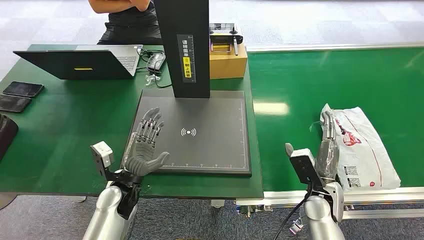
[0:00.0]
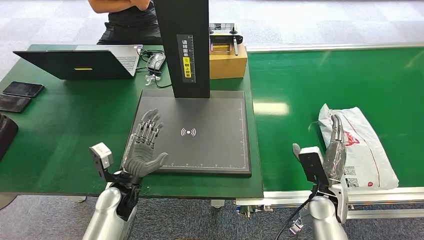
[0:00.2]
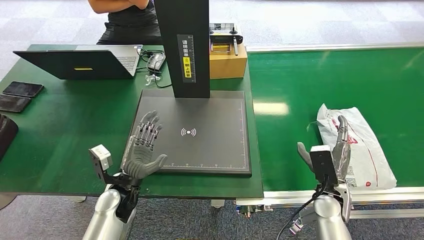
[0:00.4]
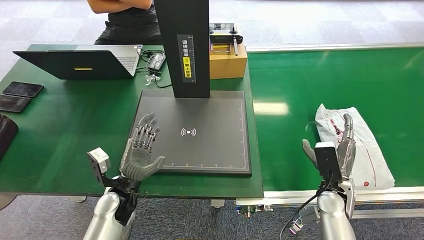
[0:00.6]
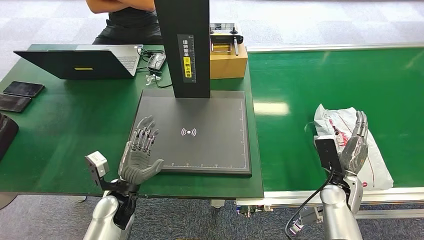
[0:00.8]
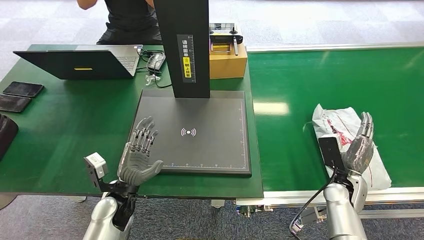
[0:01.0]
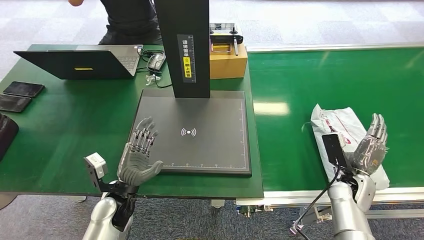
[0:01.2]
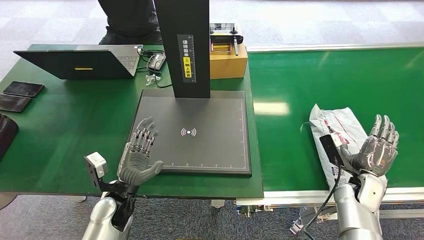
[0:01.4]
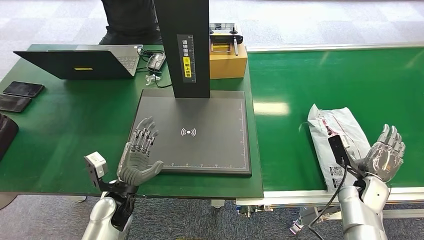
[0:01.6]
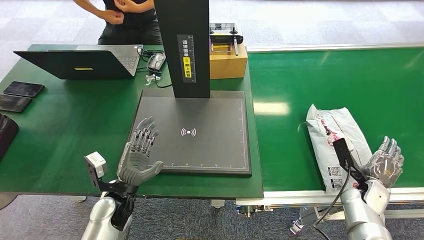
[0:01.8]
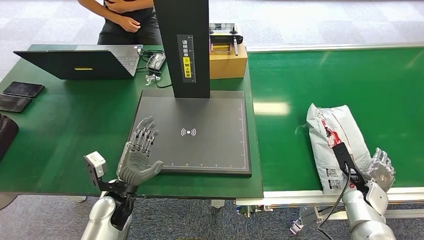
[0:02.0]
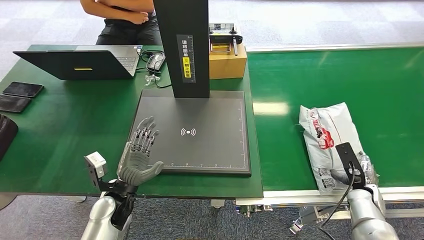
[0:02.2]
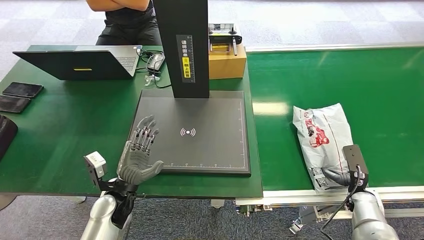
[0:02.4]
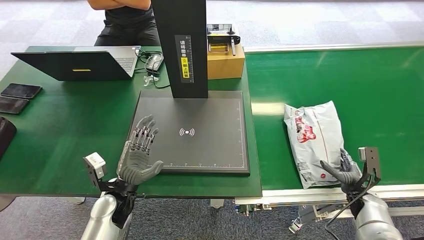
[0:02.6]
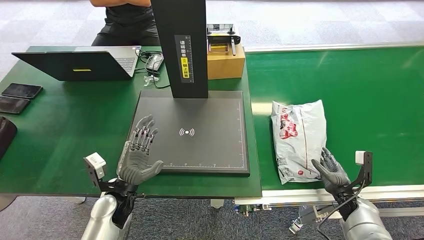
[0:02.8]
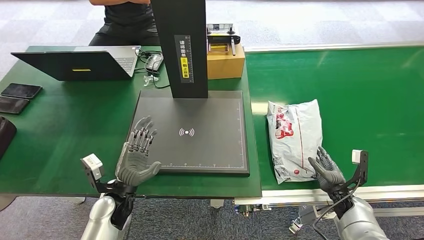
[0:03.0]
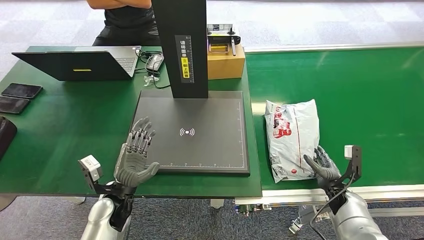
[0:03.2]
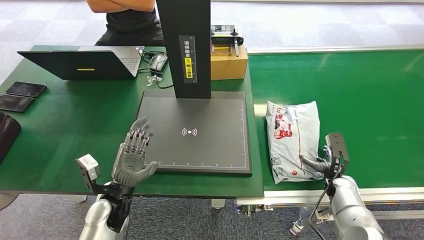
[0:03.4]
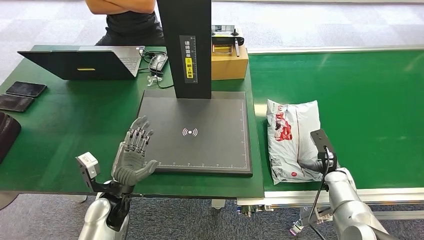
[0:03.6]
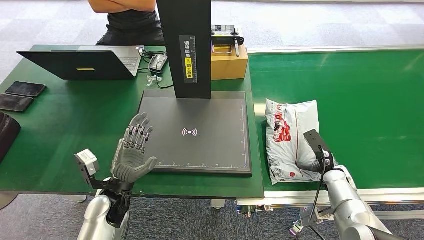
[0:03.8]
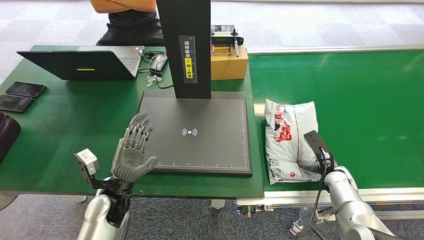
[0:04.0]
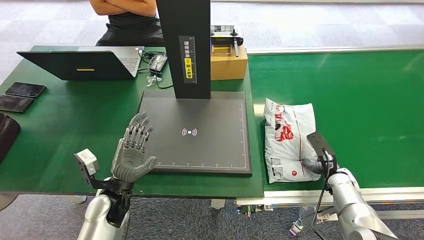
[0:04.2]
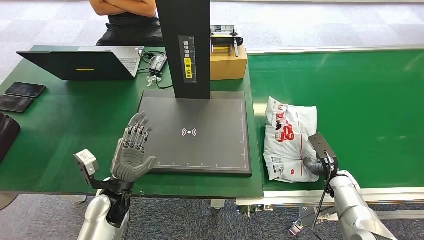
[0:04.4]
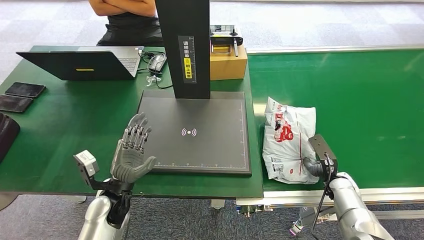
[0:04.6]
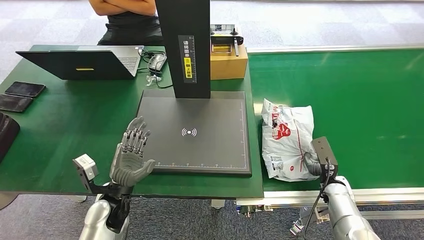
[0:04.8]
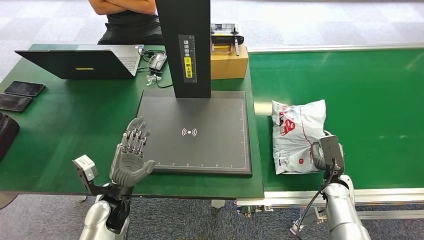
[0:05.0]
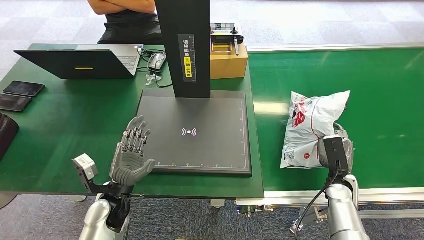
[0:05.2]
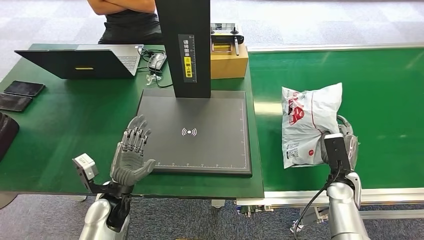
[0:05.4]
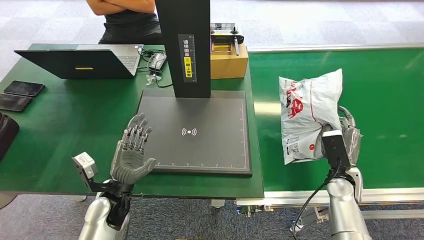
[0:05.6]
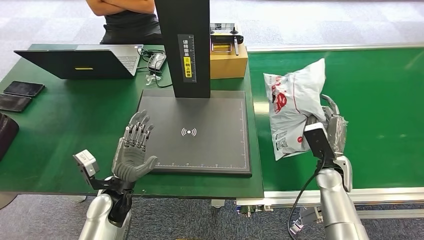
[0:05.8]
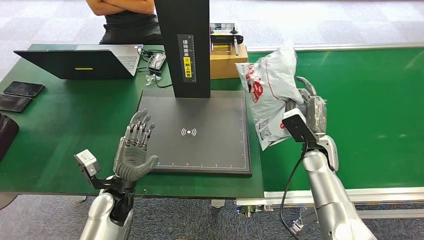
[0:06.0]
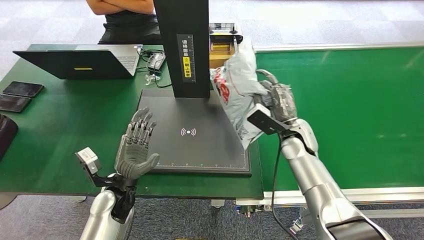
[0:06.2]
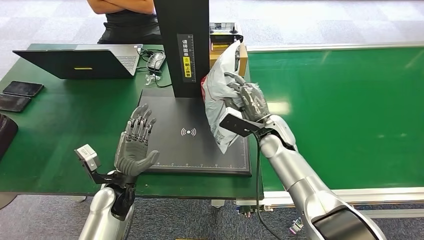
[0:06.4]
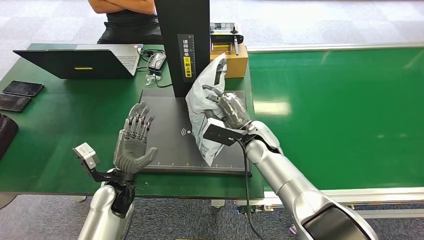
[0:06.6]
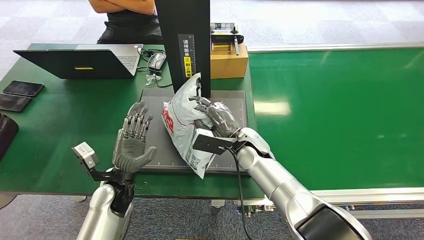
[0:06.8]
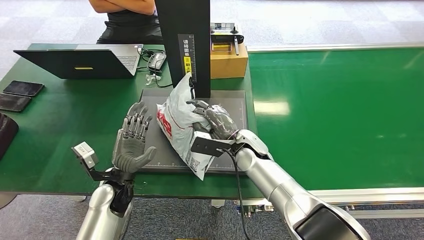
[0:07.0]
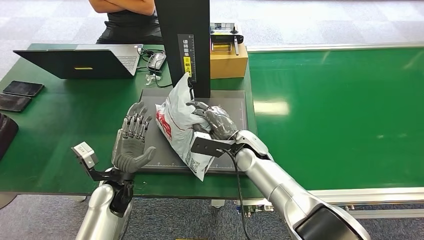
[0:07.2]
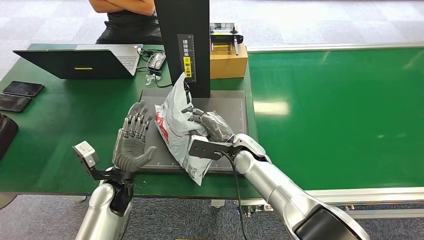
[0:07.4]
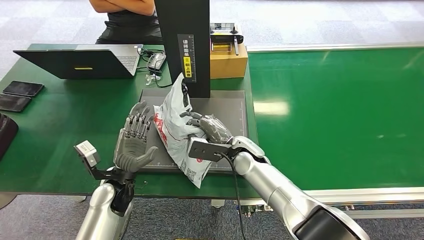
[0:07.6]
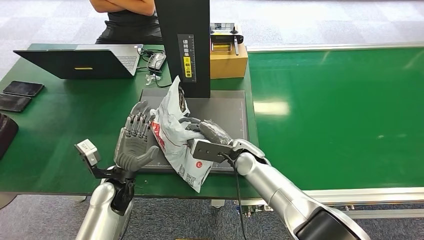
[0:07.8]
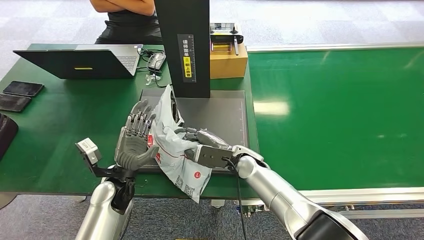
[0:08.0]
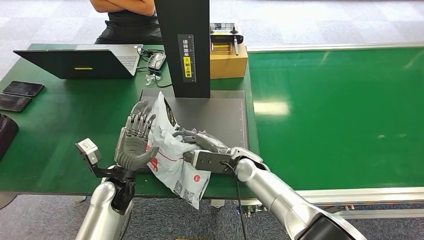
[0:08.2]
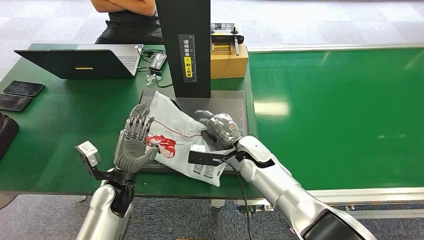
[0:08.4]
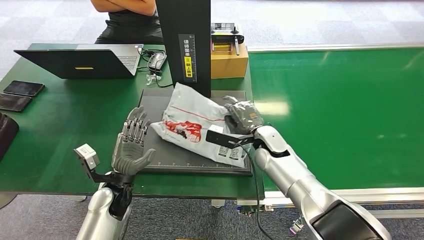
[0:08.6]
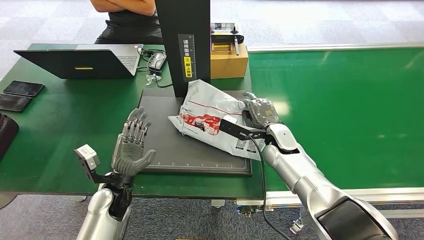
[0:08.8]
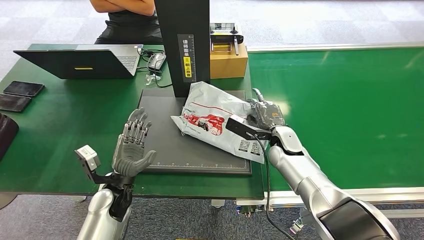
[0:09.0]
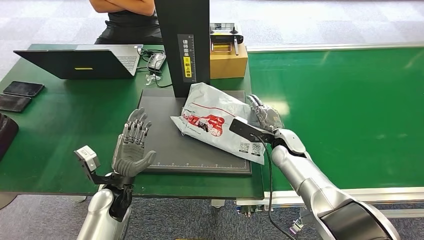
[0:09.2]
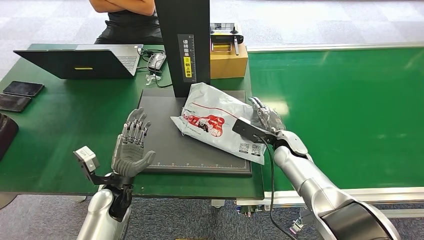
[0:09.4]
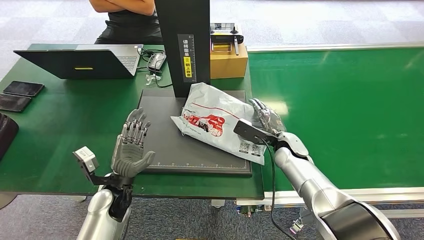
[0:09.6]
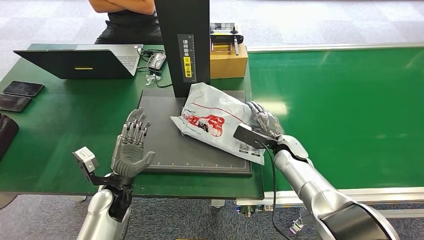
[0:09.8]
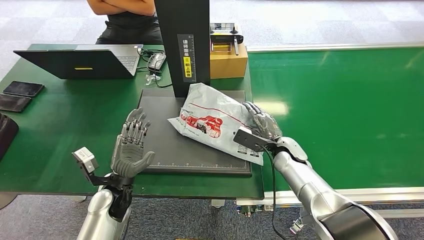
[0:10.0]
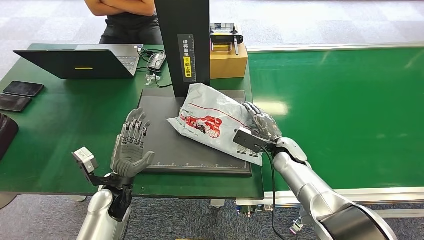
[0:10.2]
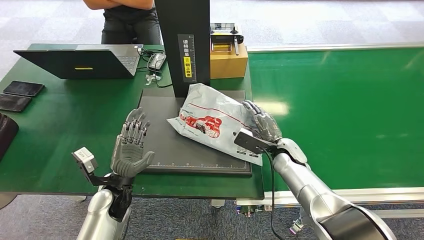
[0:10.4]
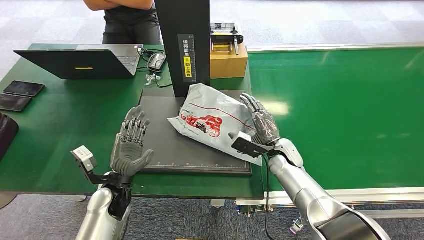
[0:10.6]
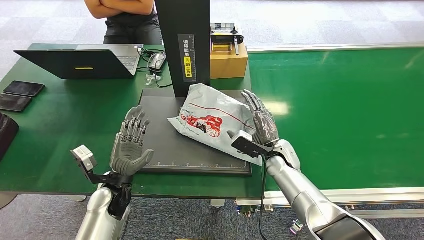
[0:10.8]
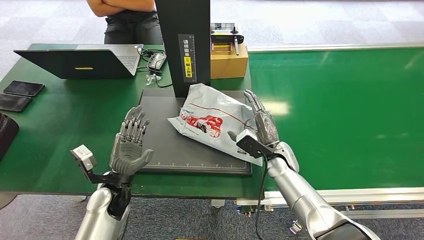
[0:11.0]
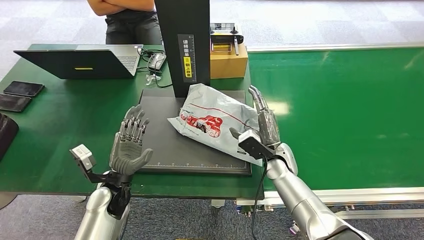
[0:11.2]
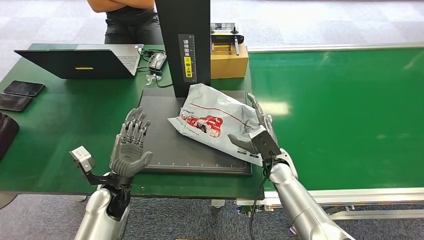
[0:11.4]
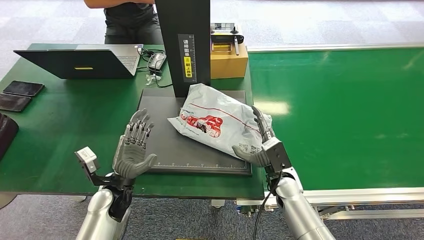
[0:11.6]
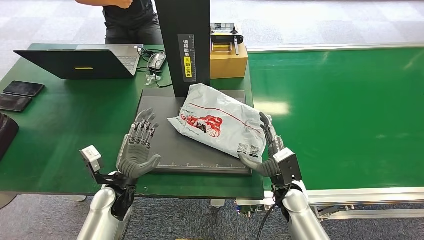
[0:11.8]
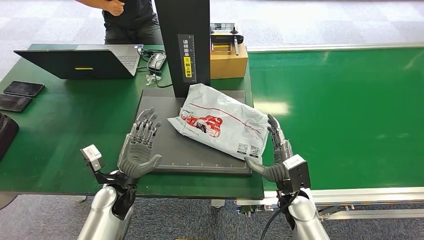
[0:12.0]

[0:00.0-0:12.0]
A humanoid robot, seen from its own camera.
Task of the whole recording: Weigh the package on the weighing device and place it in the left basket.
Step, 0:00.0 to 0:05.2: Pick up the package from the conveyor belt.
Step, 0:05.4 to 0:10.8: Place the package onto the inbound machine.
0:01.6 to 0:03.0: The right hand goes approximately 5 cm downward.
0:03.0 to 0:04.4: The right hand moves roughly 5 cm.
0:04.4 to 0:06.0: The right hand heads upward and to the left, covering about 15 cm.
0:07.6 to 0:09.0: The right hand travels to the right by roughly 10 cm.
0:10.4 to 0:12.0: The right hand shifts approximately 15 cm backward.

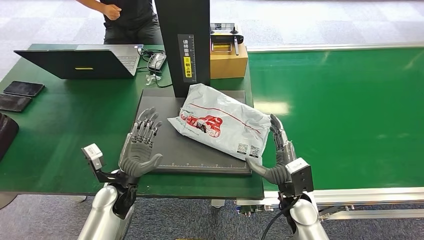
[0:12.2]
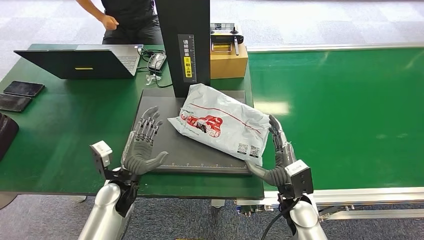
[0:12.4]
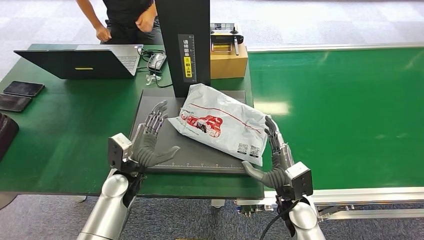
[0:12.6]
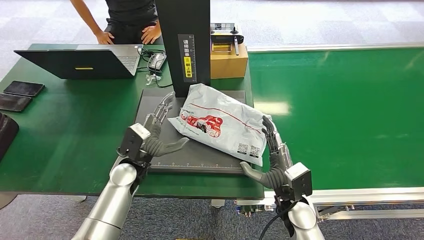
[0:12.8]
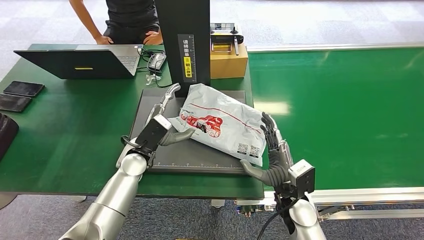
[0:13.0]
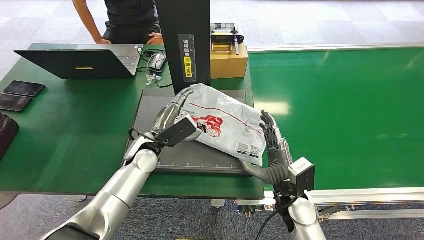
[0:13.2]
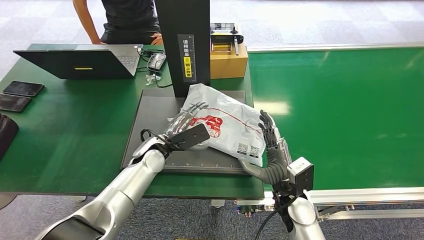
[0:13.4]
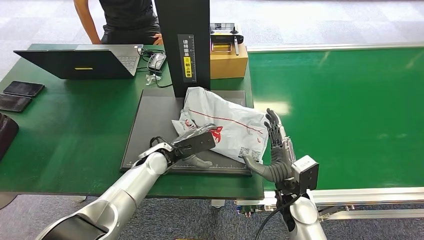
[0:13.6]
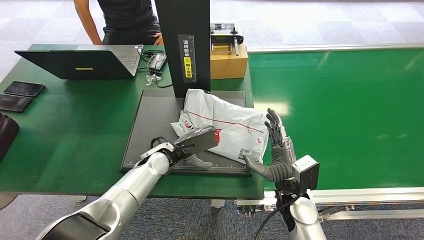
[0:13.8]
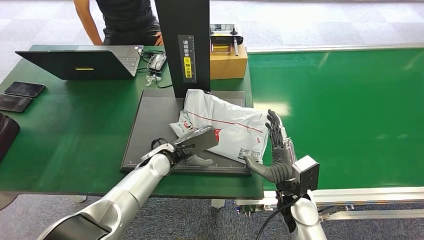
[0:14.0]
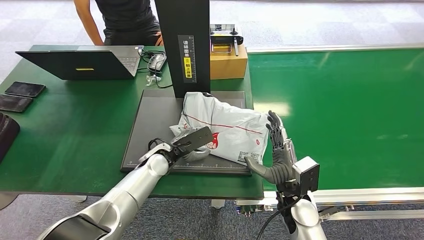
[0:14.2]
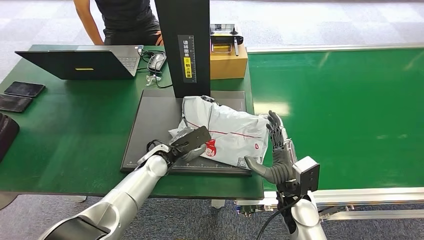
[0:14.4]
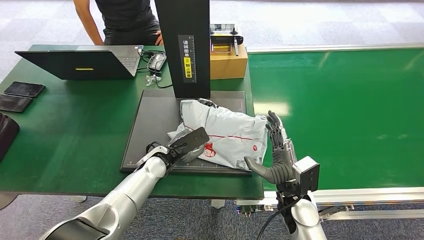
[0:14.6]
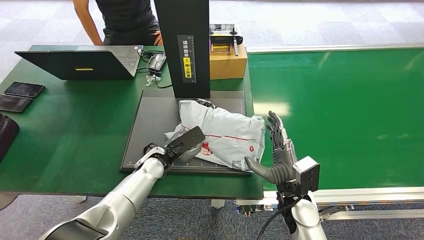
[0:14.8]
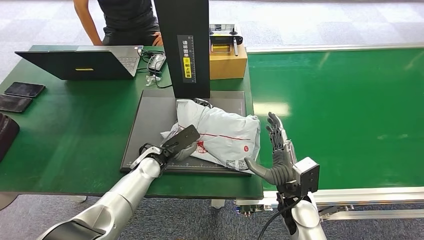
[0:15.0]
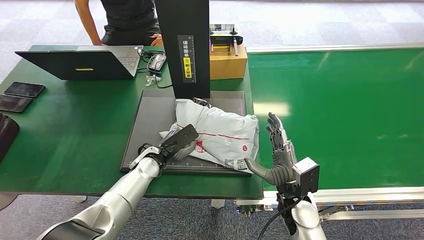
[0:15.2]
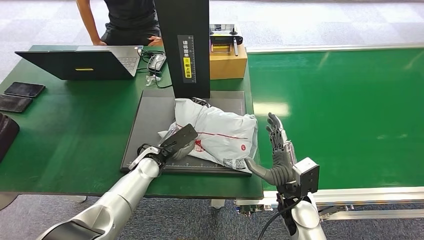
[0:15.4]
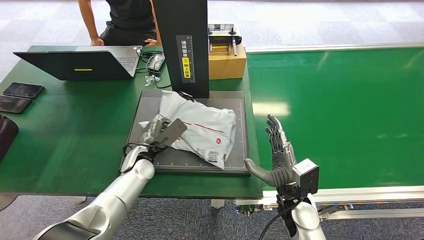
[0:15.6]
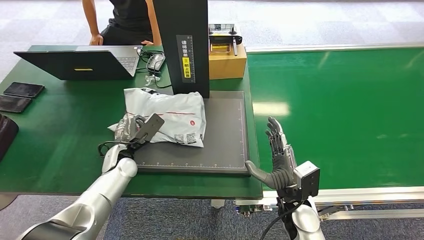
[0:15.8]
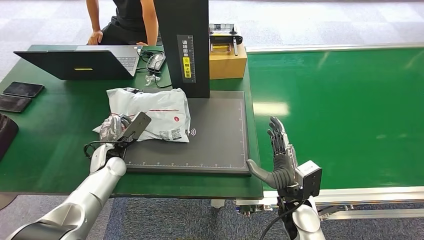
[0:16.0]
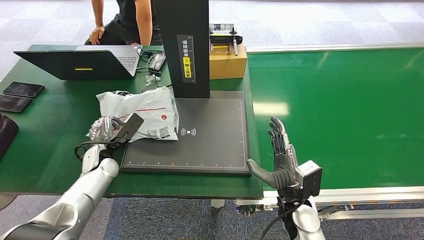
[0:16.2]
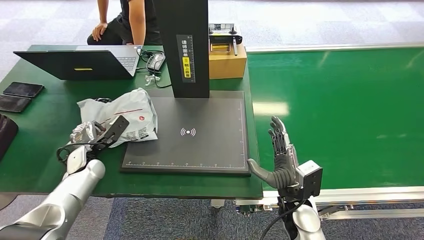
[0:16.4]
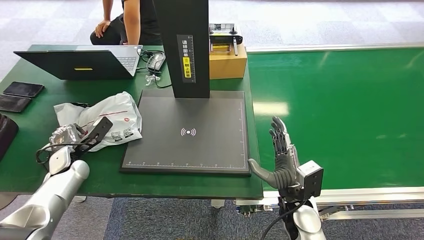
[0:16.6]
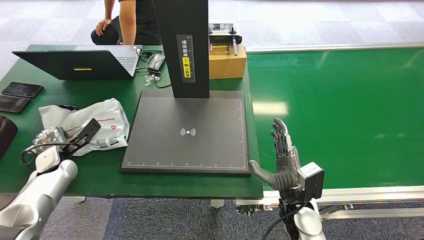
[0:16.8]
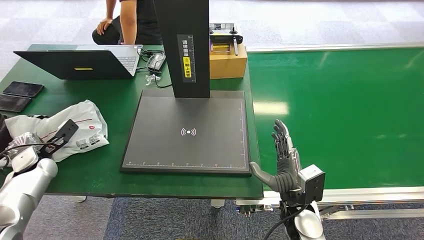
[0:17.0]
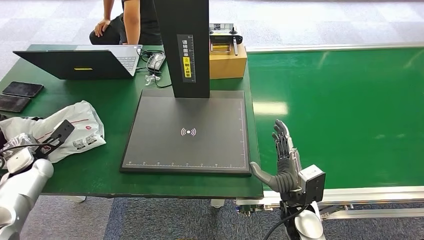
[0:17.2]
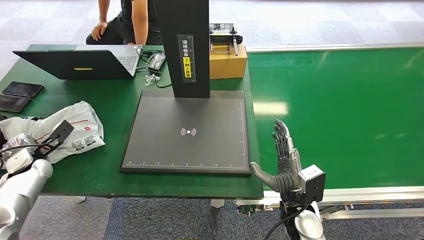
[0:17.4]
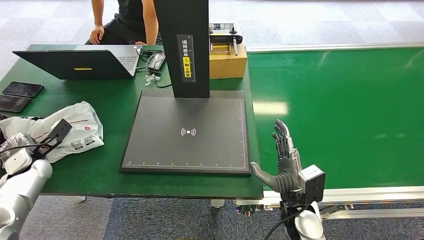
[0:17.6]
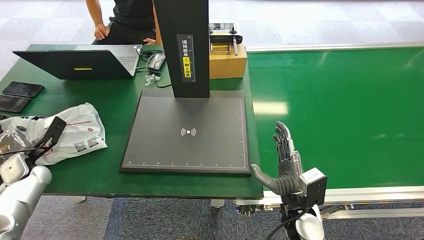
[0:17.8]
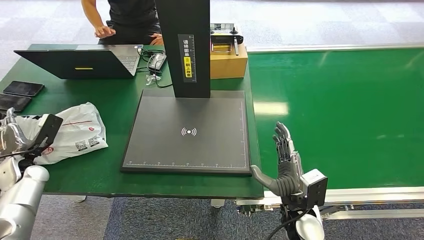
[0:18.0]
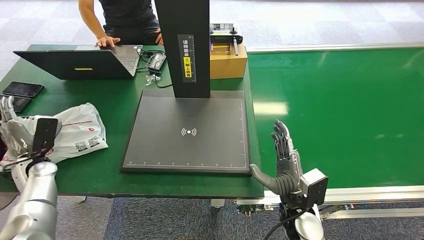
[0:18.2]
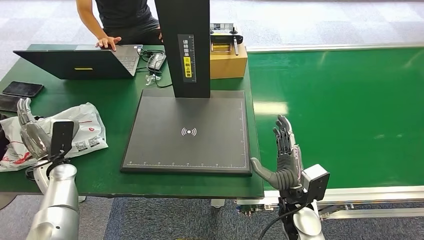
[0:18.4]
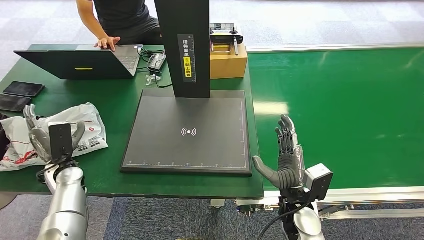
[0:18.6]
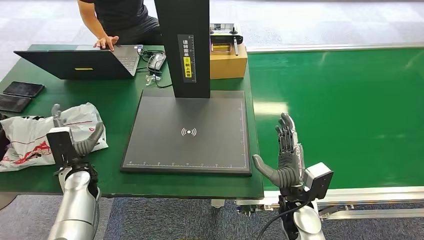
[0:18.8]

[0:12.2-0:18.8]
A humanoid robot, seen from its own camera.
Task of the whole recording: Weigh the package on the weighing device and place it in the left basket.
Step, 0:12.2 to 0:16.0: Pick up the package from the inbound machine.
Step, 0:16.2 to 0:18.6: Place the package into the parcel locker.
0:12.2 to 0:13.8: The left hand goes approximately 10 cm forward and to the right.
0:13.8 to 0:15.4: The hands stay close to where they were, moving slightly.
0:17.2 to 0:18.8: The left hand is displaced to the right by roughly 15 cm.
